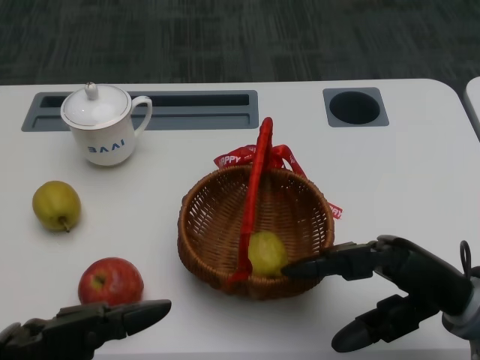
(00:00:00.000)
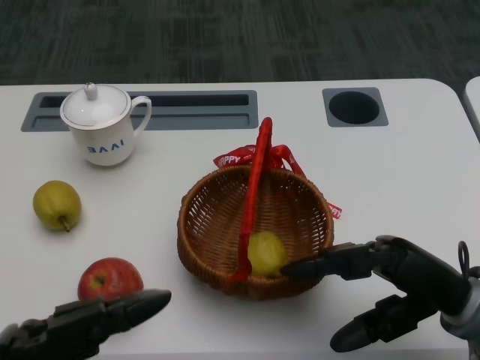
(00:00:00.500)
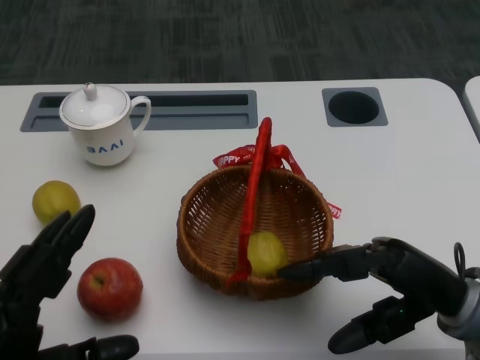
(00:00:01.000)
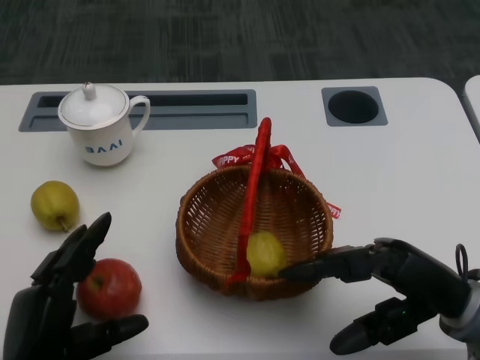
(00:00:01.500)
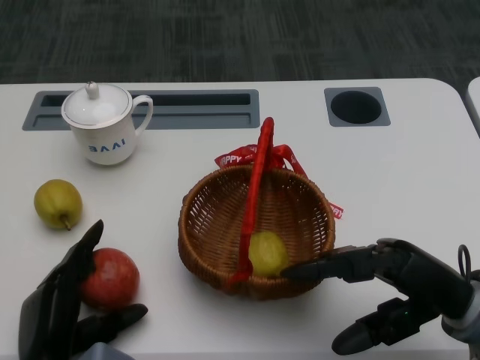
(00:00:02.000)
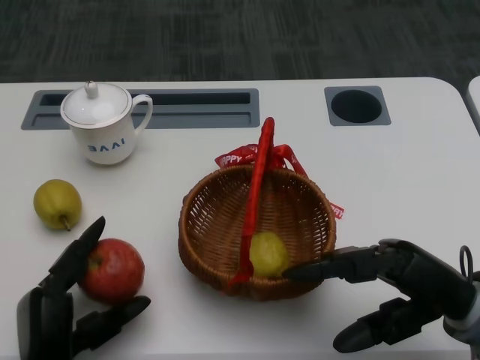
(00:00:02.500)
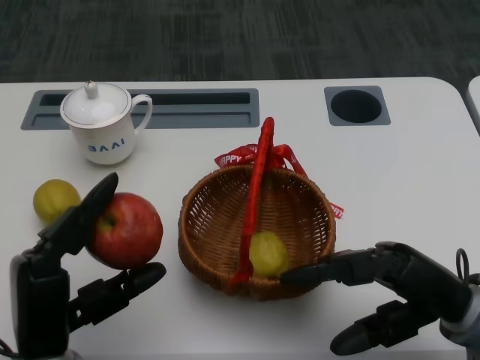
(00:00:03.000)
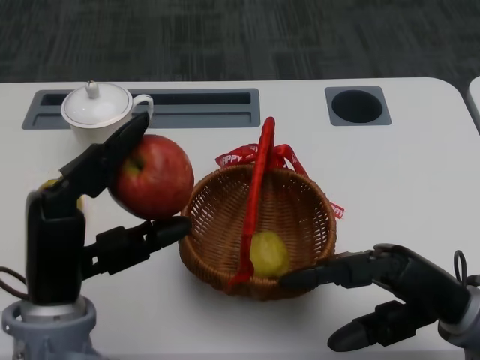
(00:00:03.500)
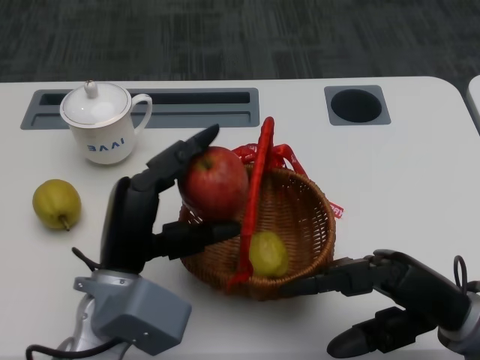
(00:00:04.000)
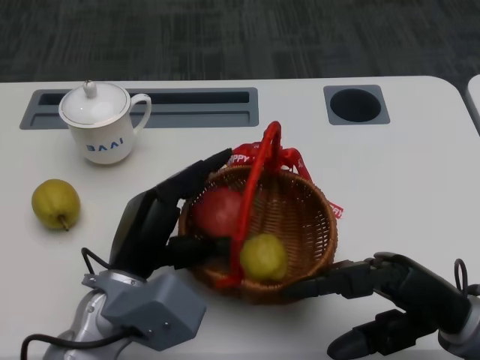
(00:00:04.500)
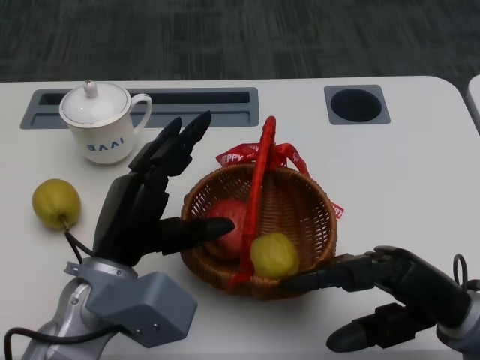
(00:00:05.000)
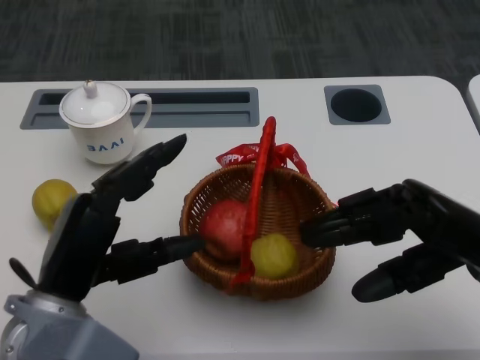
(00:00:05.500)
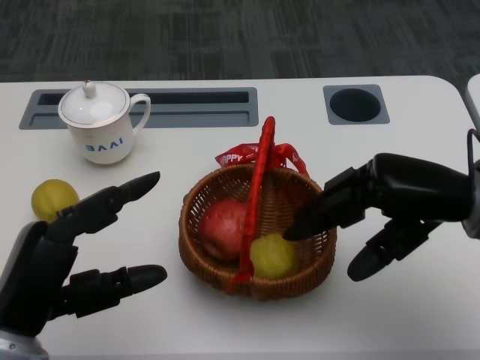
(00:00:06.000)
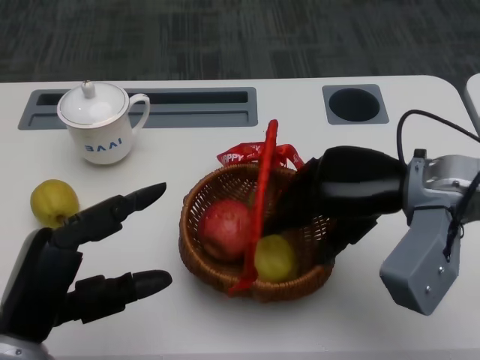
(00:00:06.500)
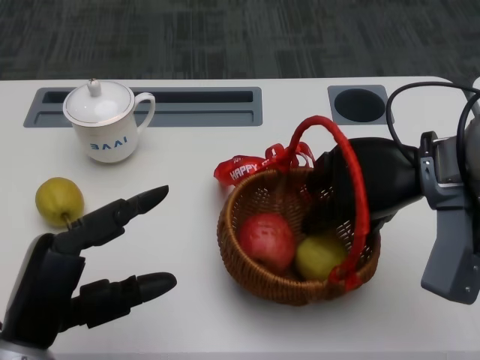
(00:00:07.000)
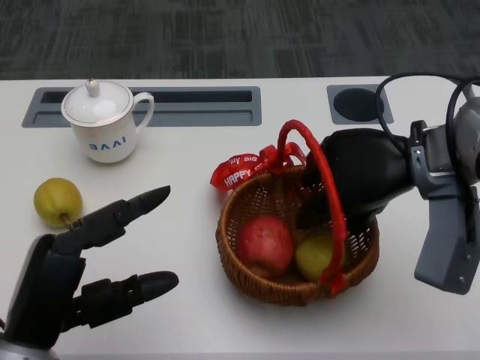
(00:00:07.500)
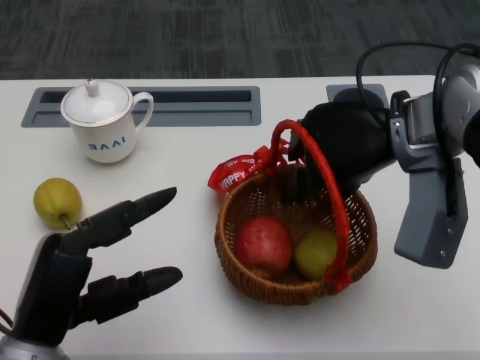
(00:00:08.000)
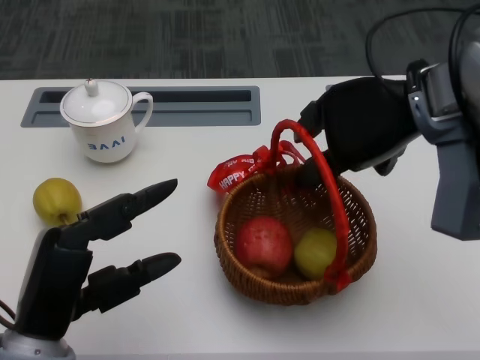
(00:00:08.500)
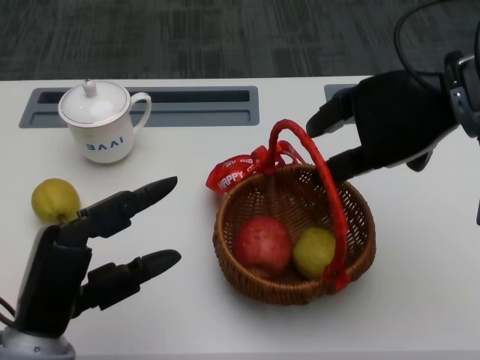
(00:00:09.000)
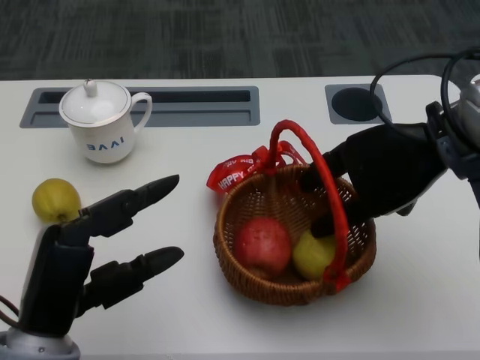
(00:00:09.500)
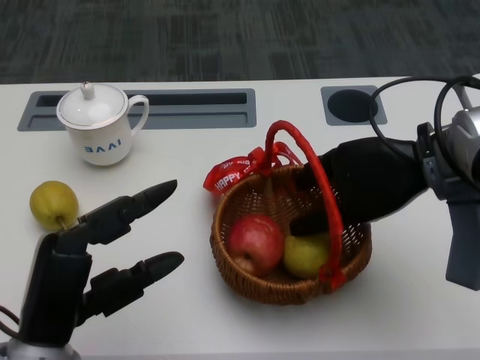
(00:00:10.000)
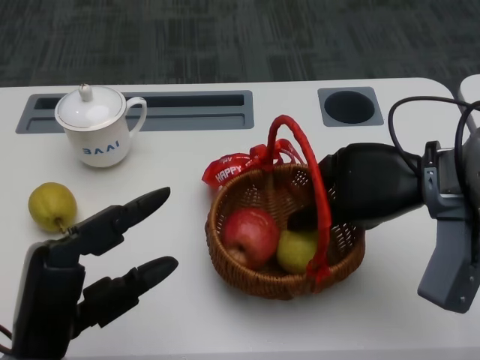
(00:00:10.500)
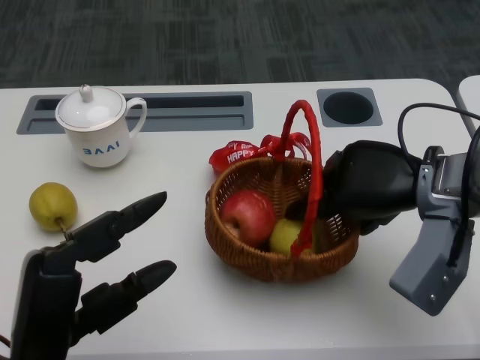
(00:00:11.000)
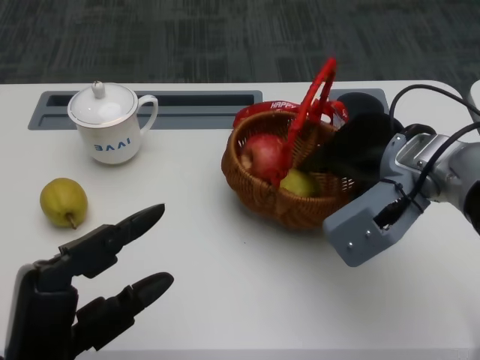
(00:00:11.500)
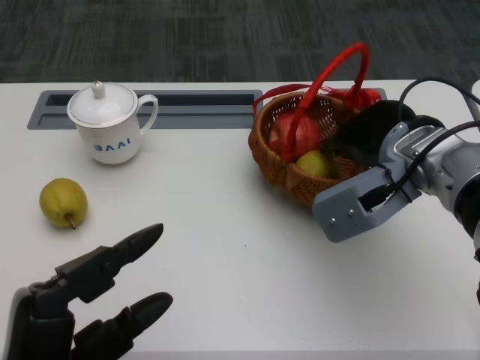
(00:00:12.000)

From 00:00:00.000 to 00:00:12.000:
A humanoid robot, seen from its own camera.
Step, from 00:00:00.500 to 00:00:02.000: Grasp the apple with the left gripper.
Step, from 00:00:02.500 to 00:00:03.500: Place the apple into the basket with the left gripper.
Step, from 00:00:04.000 to 00:00:08.500: Grasp the basket with the right gripper.
Step, from 00:00:09.000 to 00:00:11.500: Move the basket to the front of the table with the right gripper.
From 00:00:02.000 to 00:00:04.000: The left hand is displaced upward, to the right and forward by approximately 15 cm.
From 00:00:04.000 to 00:00:06.000: The right hand goes about 10 cm upward and forward. Meanwhile the left hand shifts roughly 10 cm to the left and backward.
From 00:00:06.000 to 00:00:08.000: The right hand is displaced to the left and forward by roughly 10 cm.

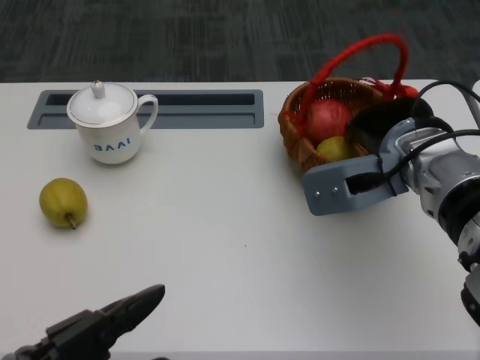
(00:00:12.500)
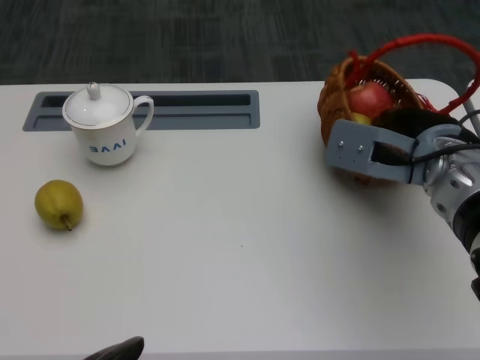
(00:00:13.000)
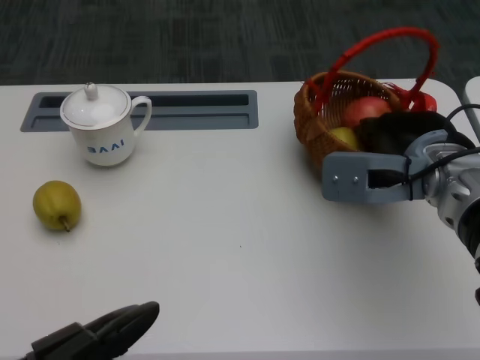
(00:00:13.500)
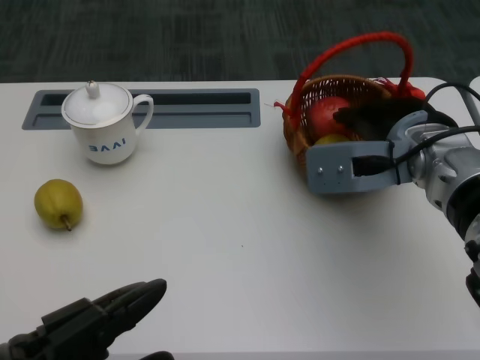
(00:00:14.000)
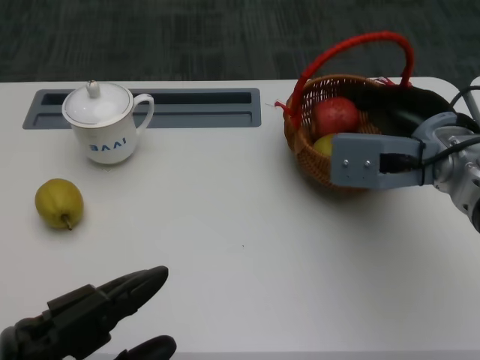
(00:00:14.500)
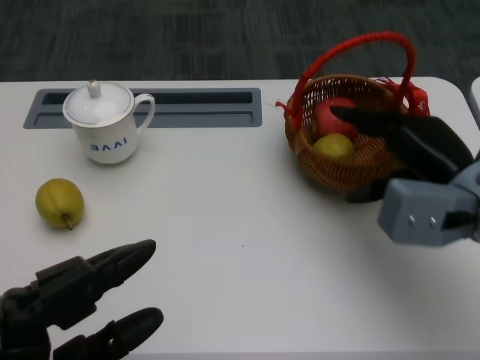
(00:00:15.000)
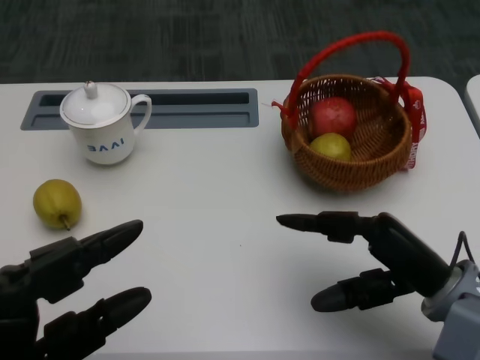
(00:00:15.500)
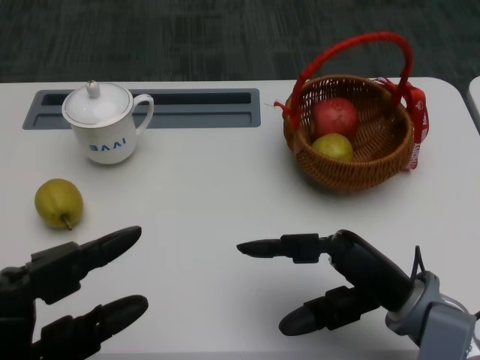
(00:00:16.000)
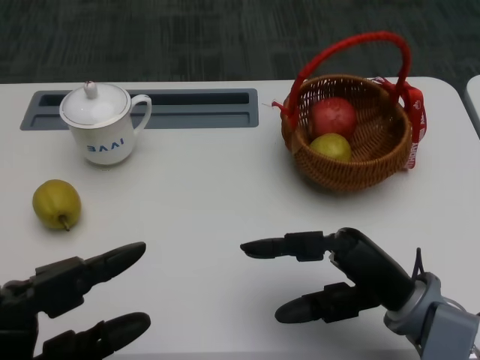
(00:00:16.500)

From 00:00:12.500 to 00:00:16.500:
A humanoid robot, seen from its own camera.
From 00:00:14.500 to 00:00:16.500: The right hand moves backward and downward, about 15 cm.

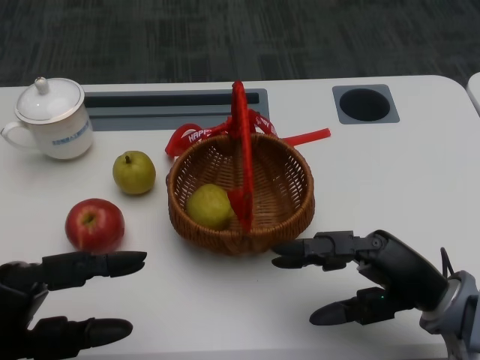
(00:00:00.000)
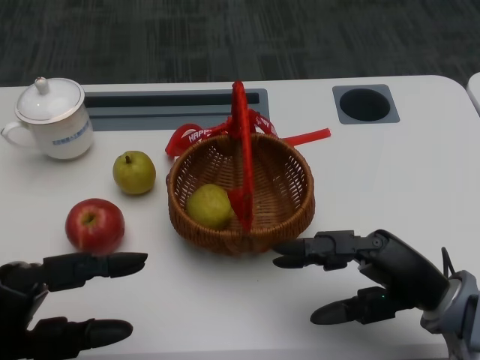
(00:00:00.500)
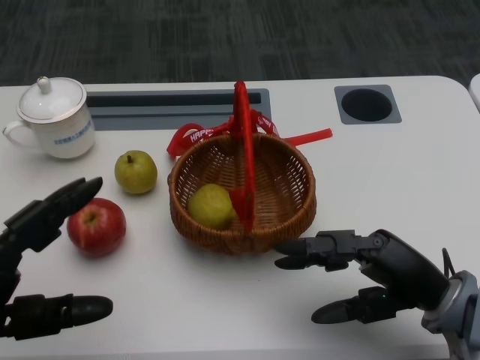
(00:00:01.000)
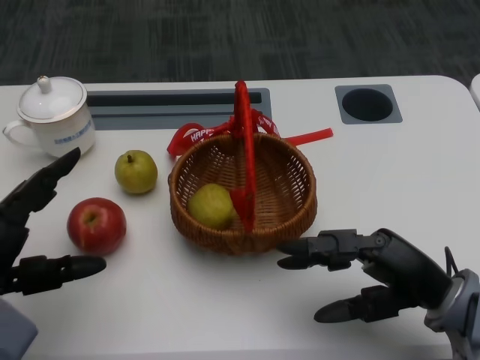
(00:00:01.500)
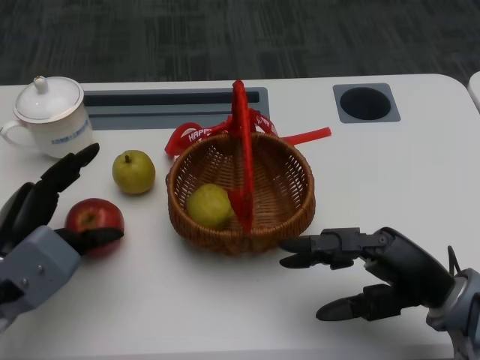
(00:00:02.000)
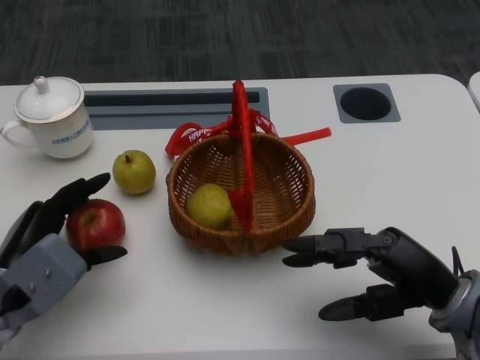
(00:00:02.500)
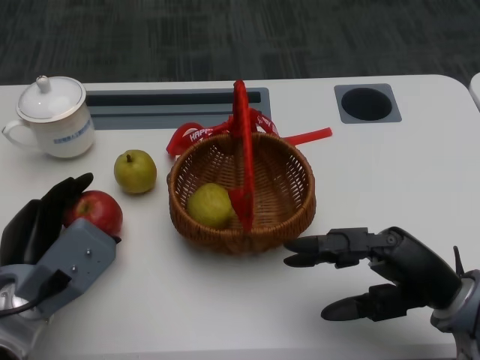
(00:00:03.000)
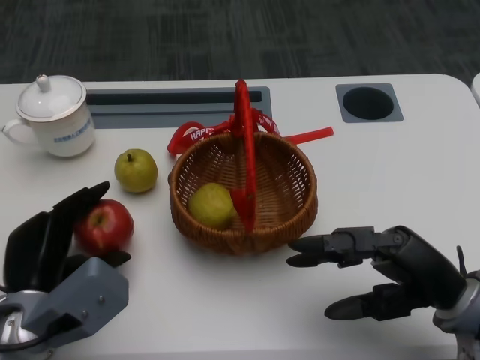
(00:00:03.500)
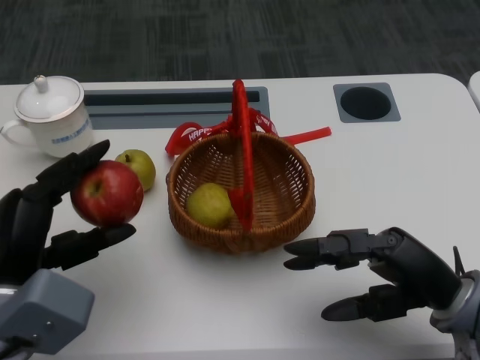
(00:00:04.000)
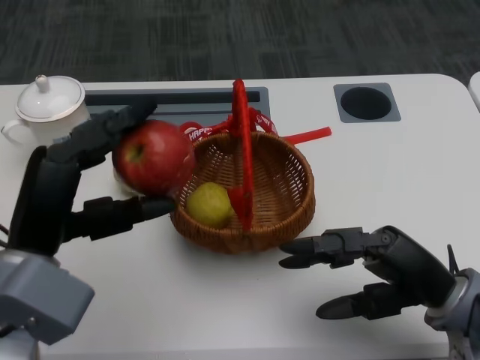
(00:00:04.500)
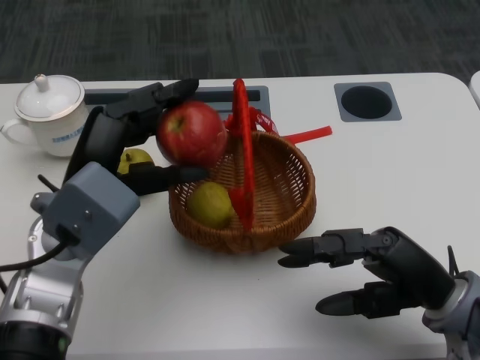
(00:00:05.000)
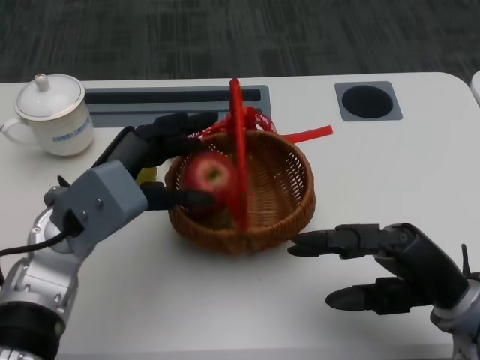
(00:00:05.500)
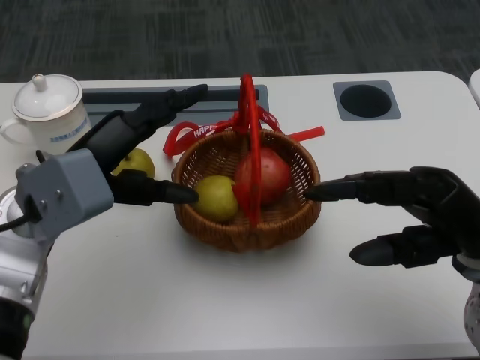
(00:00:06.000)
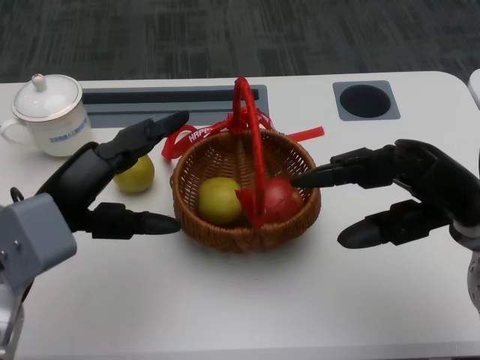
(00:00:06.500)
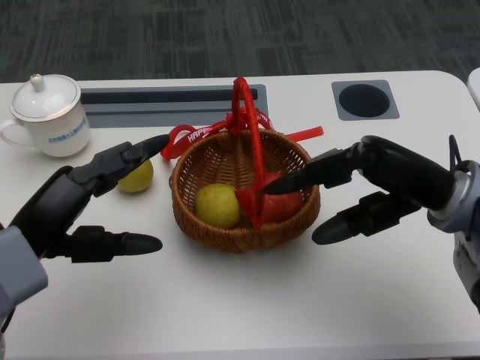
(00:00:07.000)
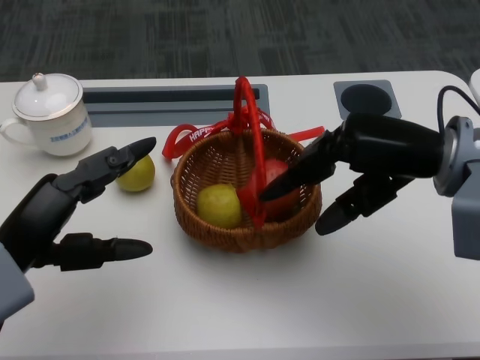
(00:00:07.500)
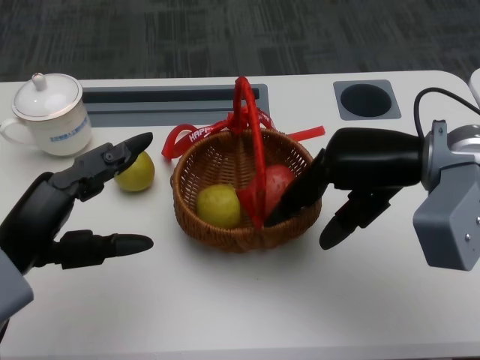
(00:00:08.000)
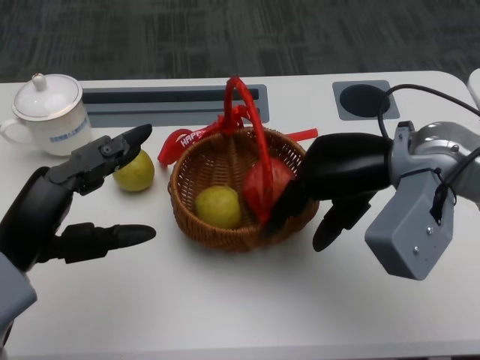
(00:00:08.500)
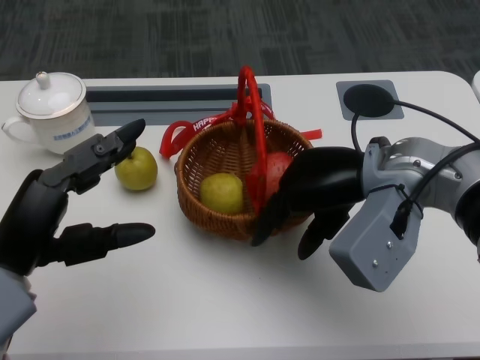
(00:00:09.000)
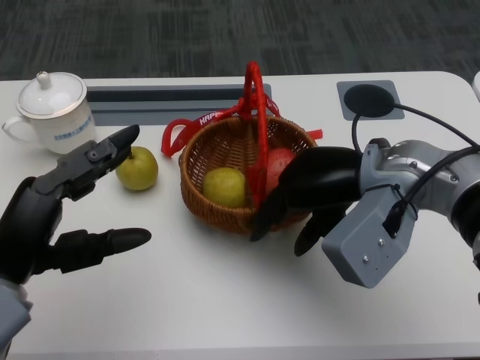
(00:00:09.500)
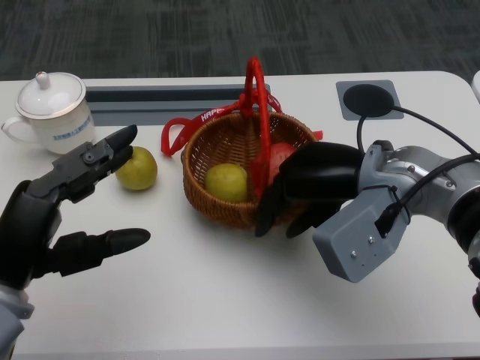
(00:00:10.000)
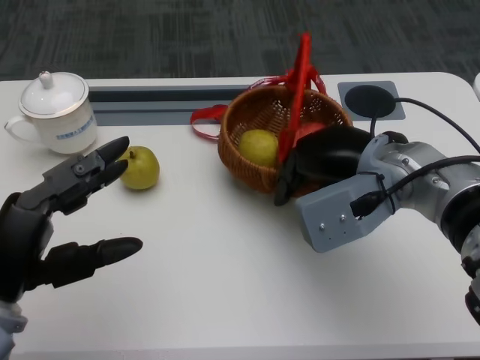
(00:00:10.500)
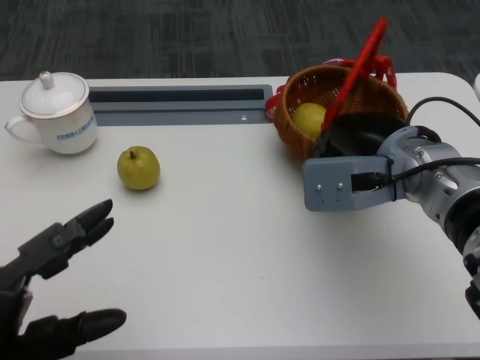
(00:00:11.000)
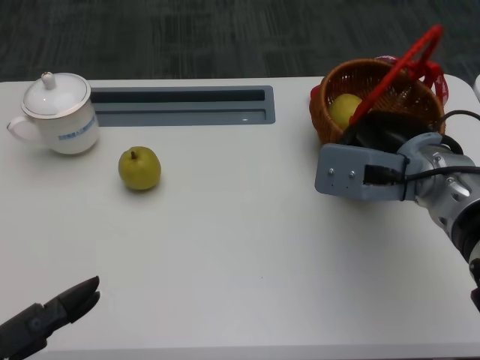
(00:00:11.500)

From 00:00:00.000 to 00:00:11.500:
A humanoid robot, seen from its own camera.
Step, from 00:00:01.000 to 00:00:02.000: Grasp the apple with the left gripper.
Step, from 00:00:02.500 to 00:00:04.000: Place the apple into the basket with the left gripper.
Step, from 00:00:05.000 to 00:00:08.000: Grasp the basket with the right gripper.
Step, from 00:00:08.500 to 00:00:10.000: Move the basket to the front of the table with the right gripper.
From 00:00:02.000 to 00:00:04.000: The left hand ends up approximately 5 cm from where it was.
From 00:00:04.000 to 00:00:06.000: The right hand moves roughly 5 cm; the left hand shifts roughly 10 cm forward and upward.
From 00:00:06.000 to 00:00:07.500: The right hand is displaced upward and forward by about 10 cm. Meanwhile the left hand moves backward, some 5 cm.
From 00:00:07.500 to 00:00:09.500: The right hand shifts approximately 5 cm to the left.
From 00:00:09.500 to 00:00:11.500: The left hand is displaced backward by about 15 cm.
